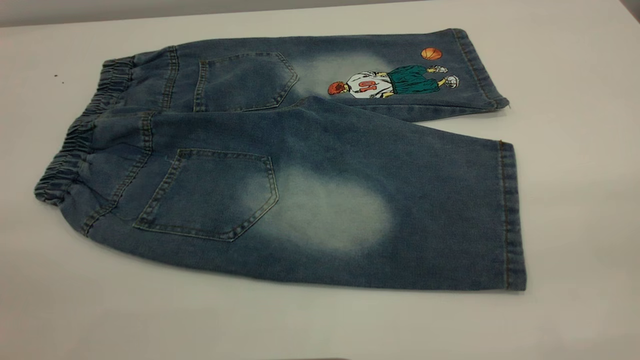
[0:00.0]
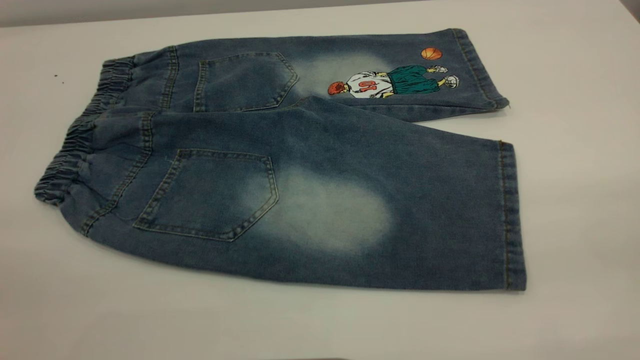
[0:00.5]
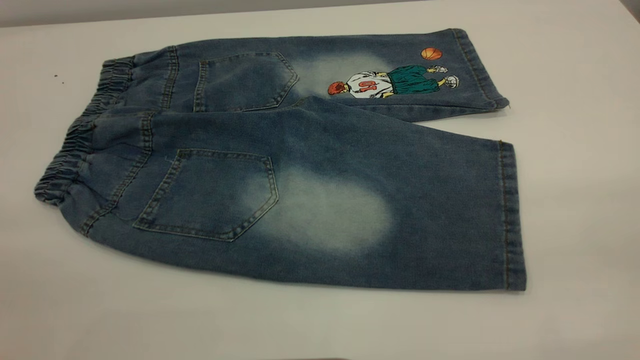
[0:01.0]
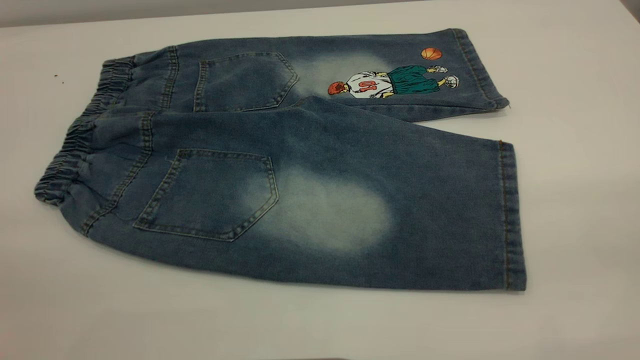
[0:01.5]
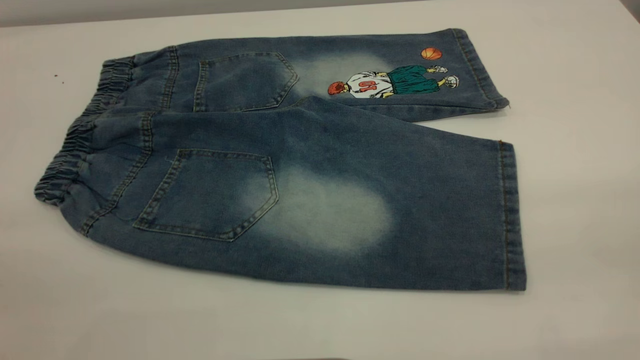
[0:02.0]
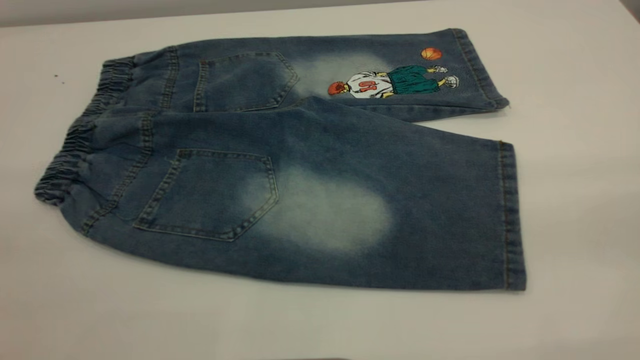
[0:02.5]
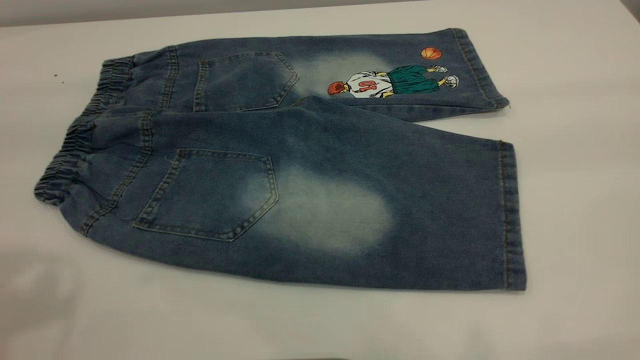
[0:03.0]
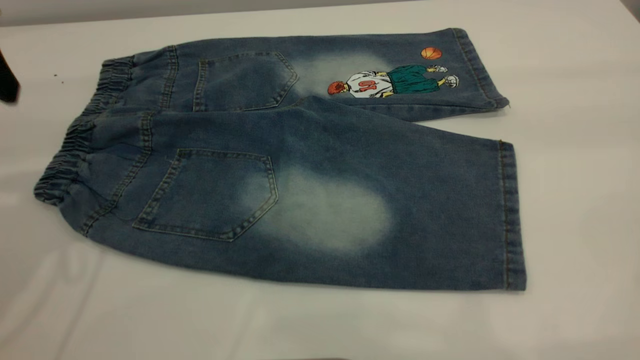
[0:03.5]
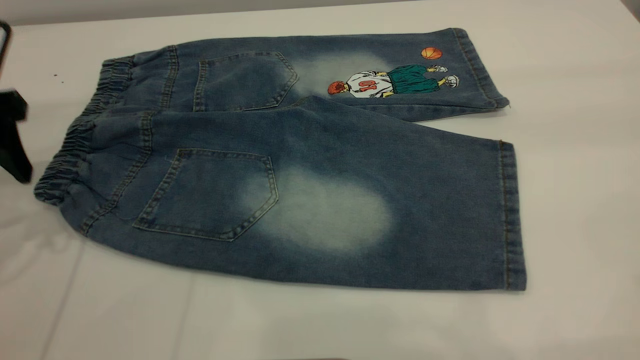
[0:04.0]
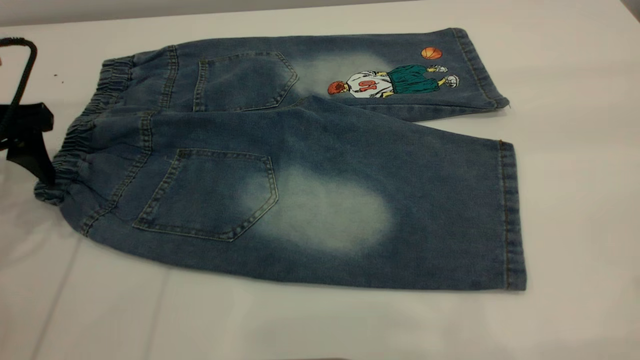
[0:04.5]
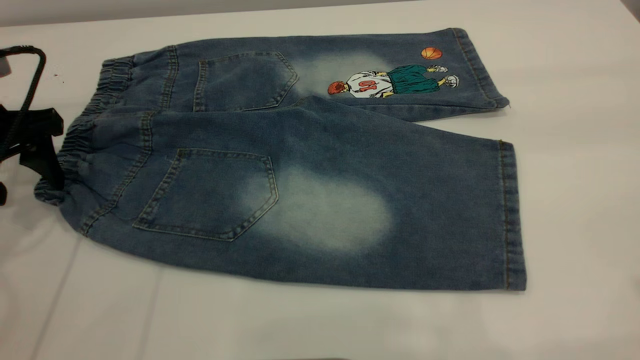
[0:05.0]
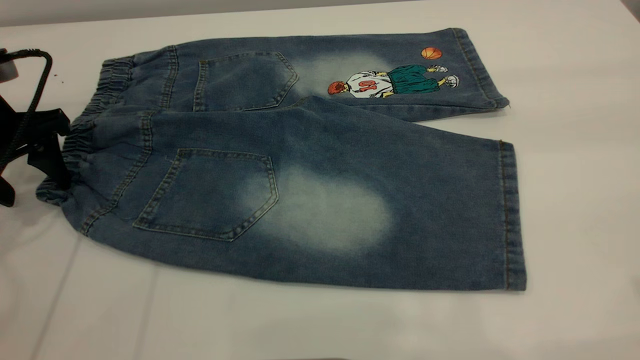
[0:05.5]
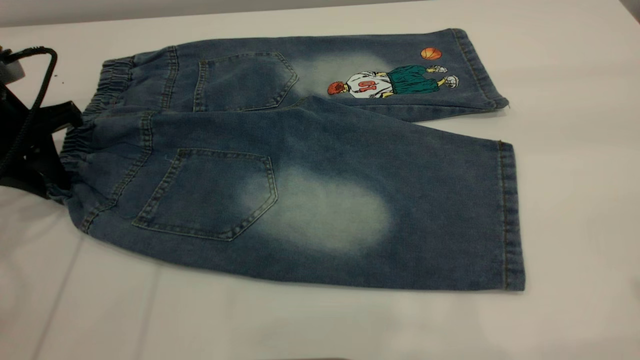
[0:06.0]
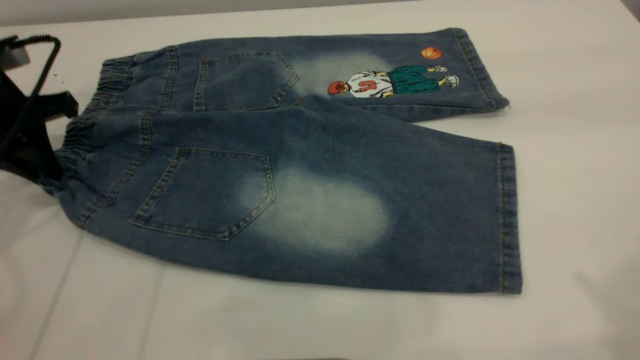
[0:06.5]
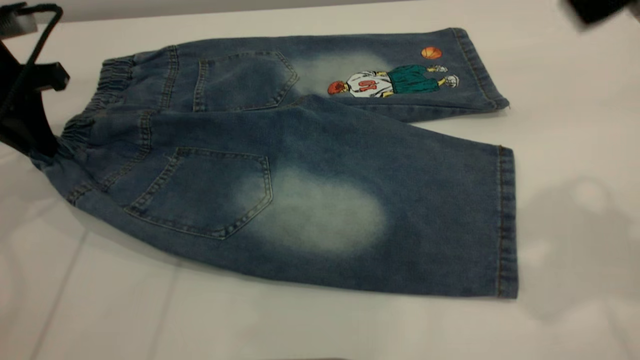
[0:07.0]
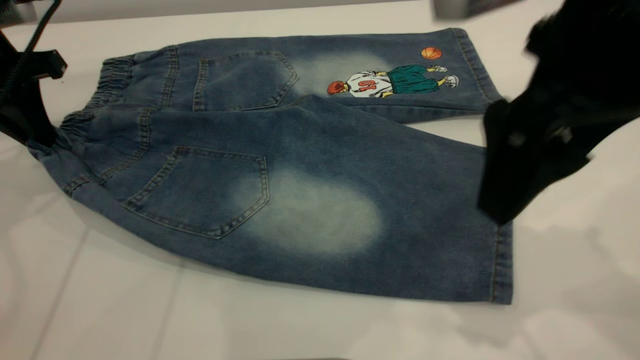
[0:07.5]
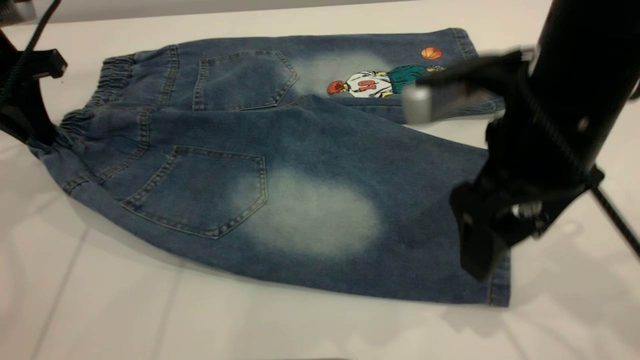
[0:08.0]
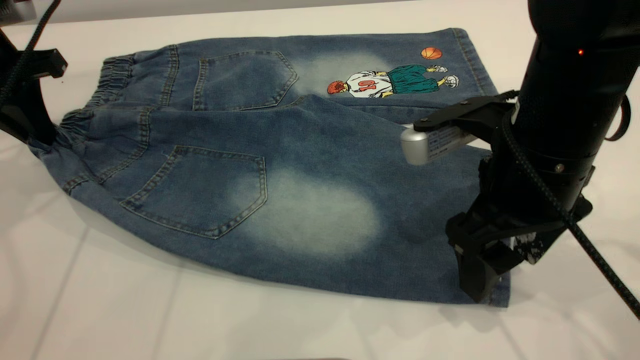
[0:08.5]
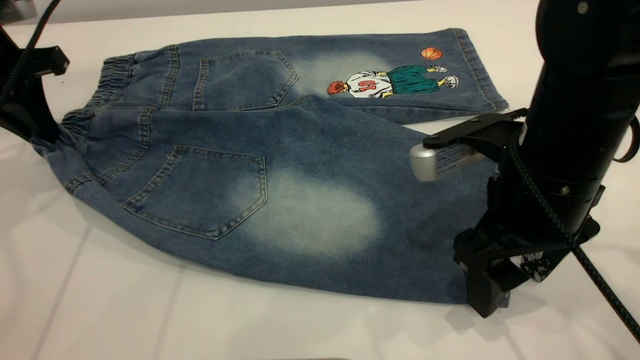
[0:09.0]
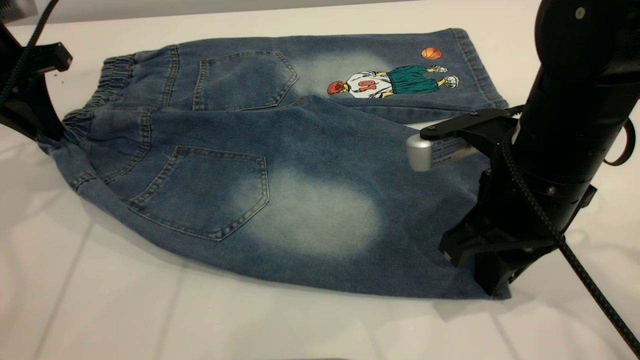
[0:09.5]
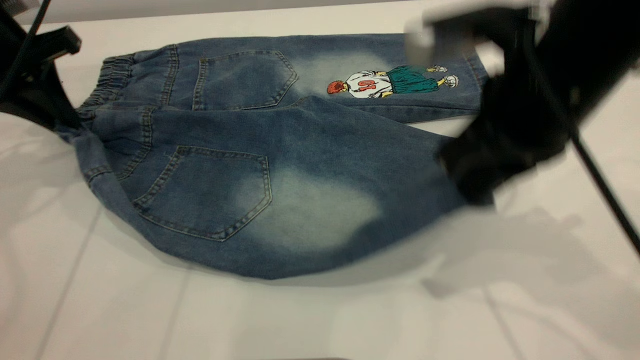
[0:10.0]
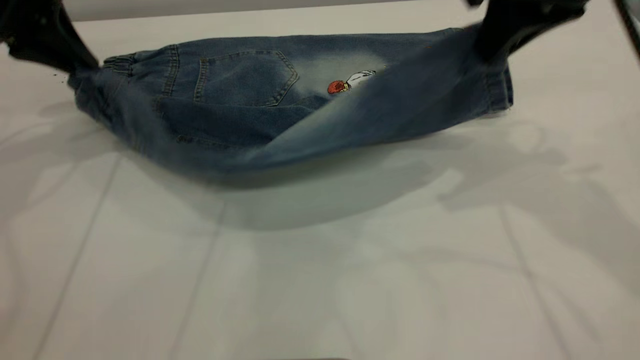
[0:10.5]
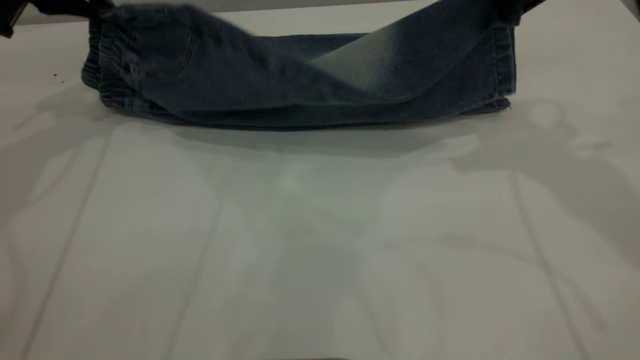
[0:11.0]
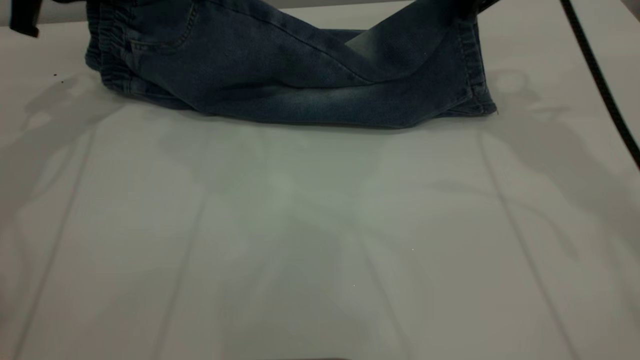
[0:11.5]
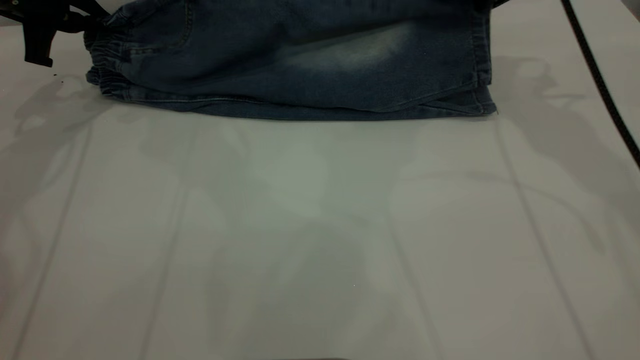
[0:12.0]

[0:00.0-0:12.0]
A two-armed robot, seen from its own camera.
0:00.0 to 0:02.0: The two grippers keep their place.
0:02.0 to 0:04.0: The left gripper shifts about 35 cm forward and downward.
0:04.0 to 0:06.0: The left gripper travels downward by some 5 cm, and closes its fingers.
0:06.0 to 0:08.0: The left gripper heads upward, covering about 5 cm. Meanwhile the right gripper shifts approximately 30 cm downward, to the left and forward.
0:08.0 to 0:10.0: The right gripper closes.
0:10.0 to 0:12.0: The left gripper moves forward, about 10 cm. Meanwhile the right gripper shifts about 20 cm forward and to the right.

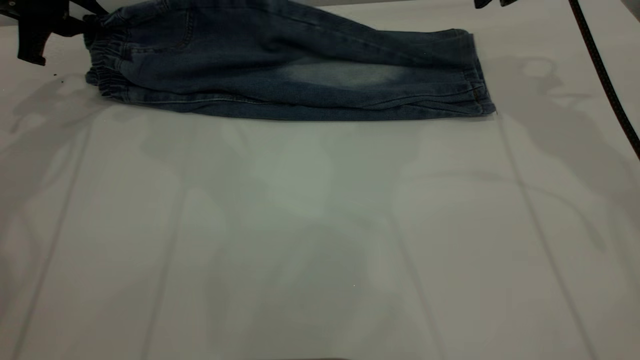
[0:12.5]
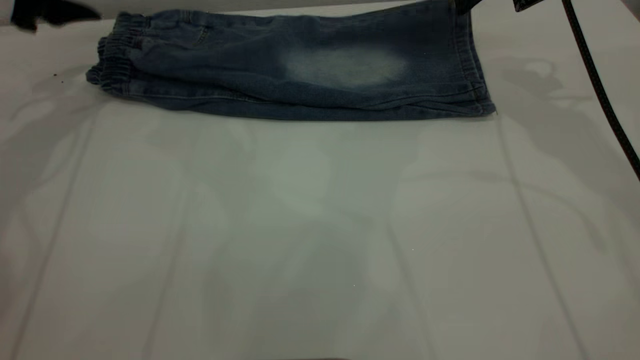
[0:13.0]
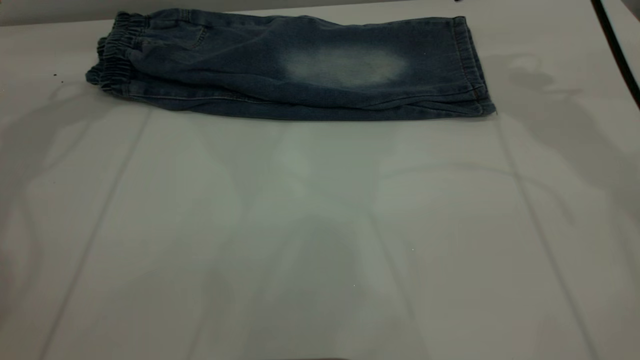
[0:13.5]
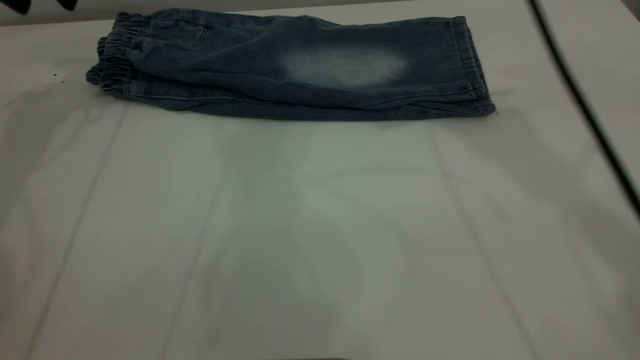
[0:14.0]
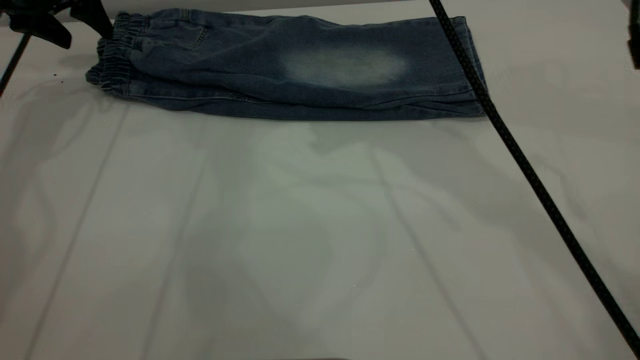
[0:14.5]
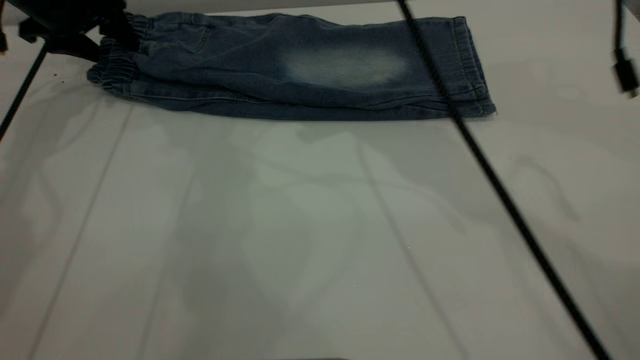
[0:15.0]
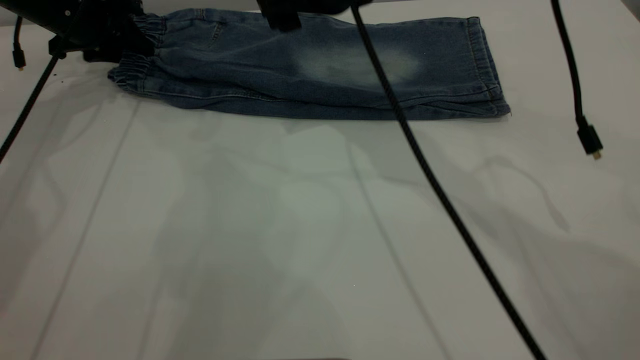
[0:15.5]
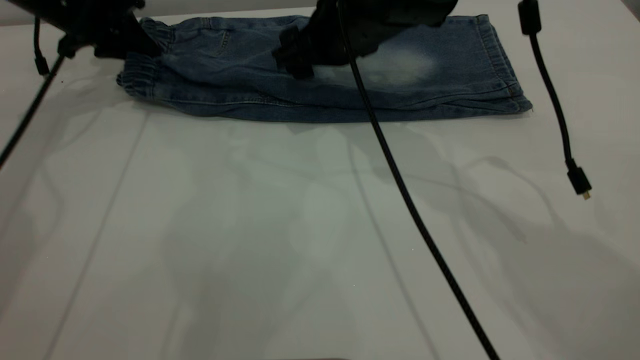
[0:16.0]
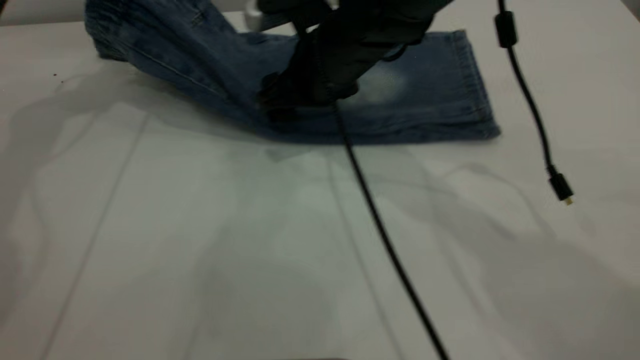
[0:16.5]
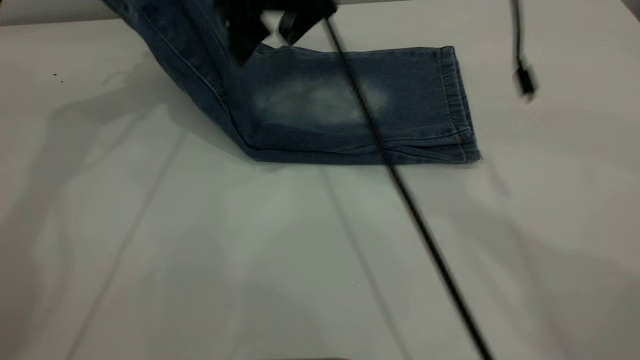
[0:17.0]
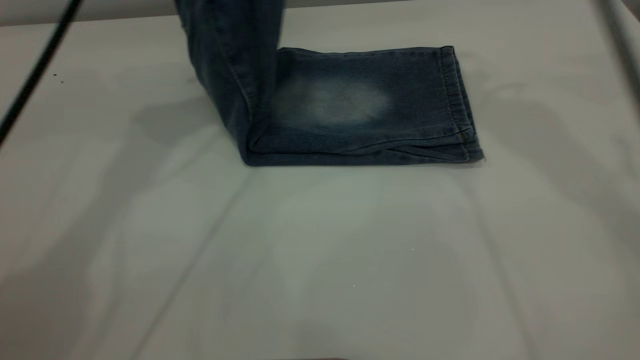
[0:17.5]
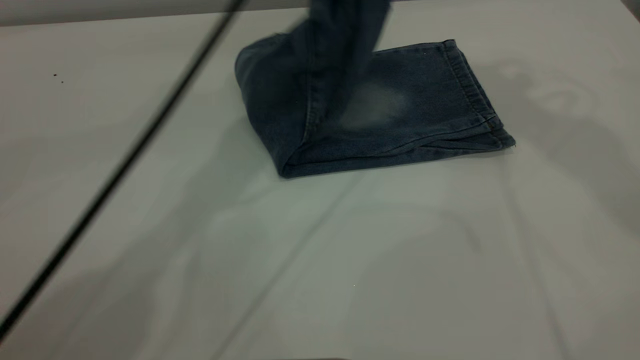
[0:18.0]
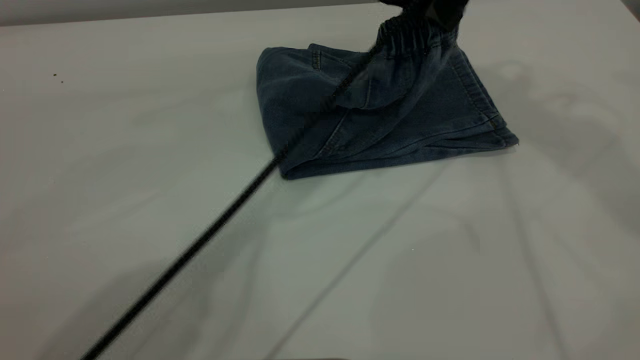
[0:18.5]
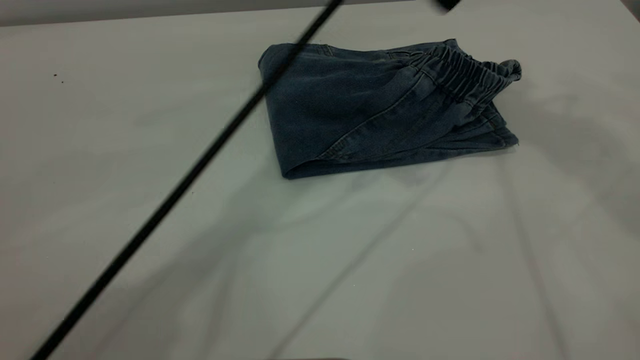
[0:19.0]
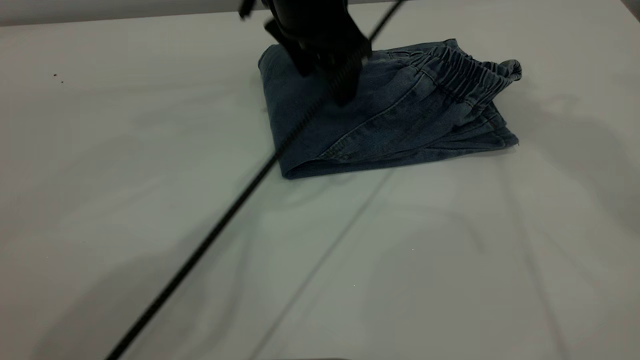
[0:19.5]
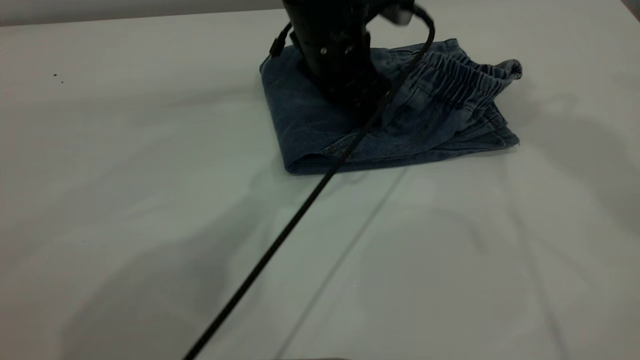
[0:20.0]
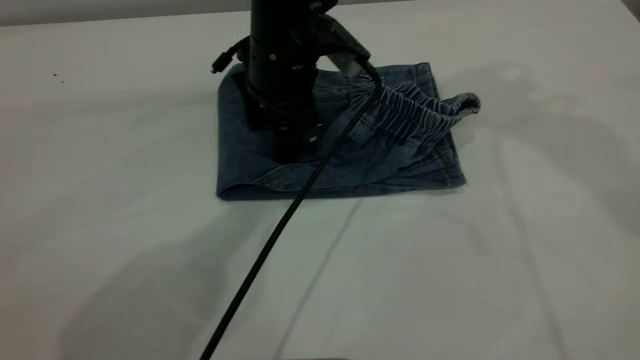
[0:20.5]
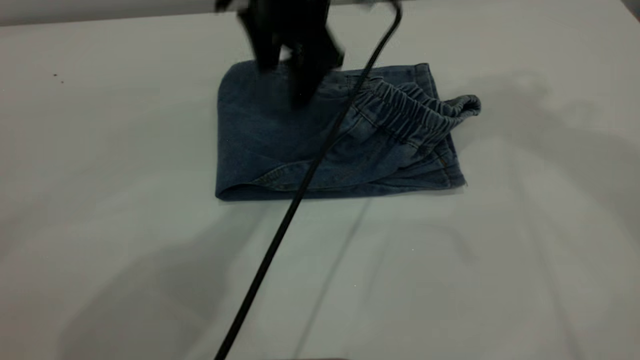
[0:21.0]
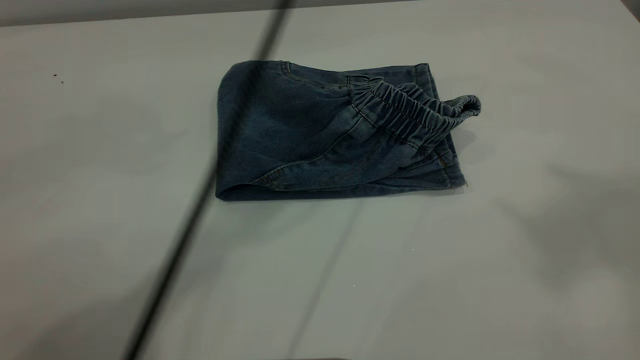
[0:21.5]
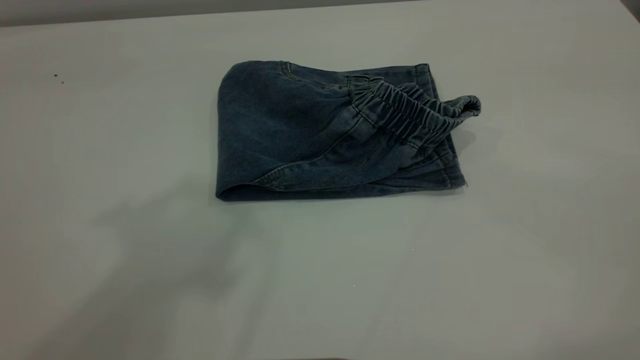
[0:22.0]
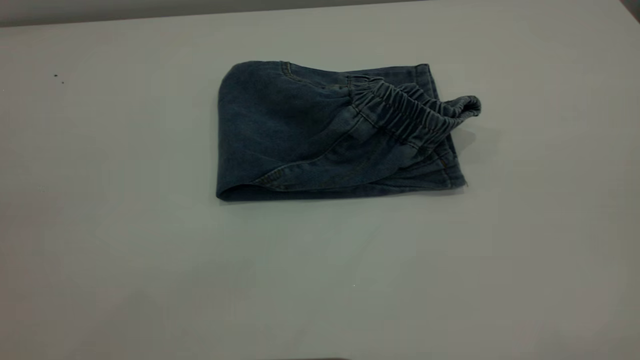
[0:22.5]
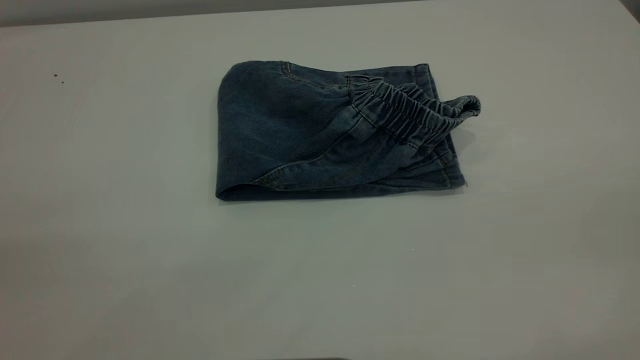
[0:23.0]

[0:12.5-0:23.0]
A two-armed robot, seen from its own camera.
Step, 0:13.5 to 0:18.5: Fold the pants from left to right.
0:12.5 to 0:14.5: The right gripper travels to the left by roughly 15 cm, and opens; the left gripper is displaced forward by approximately 5 cm, and opens up.
0:14.5 to 0:16.5: The right gripper heads downward, covering about 15 cm; the left gripper shifts about 5 cm upward, and closes its fingers.
0:16.5 to 0:19.0: The left gripper shifts some 30 cm to the right, and opens. Meanwhile the right gripper is displaced upward and to the right by some 35 cm.
0:19.0 to 0:21.0: The left gripper travels downward by some 5 cm, while the right gripper shifts by roughly 5 cm.
0:21.0 to 0:23.0: The right gripper goes approximately 40 cm backward; the left gripper goes approximately 50 cm backward, to the left and upward.
